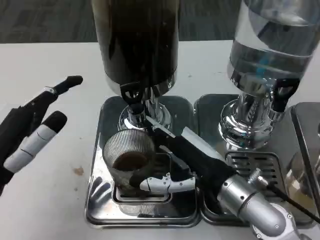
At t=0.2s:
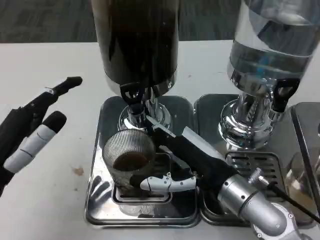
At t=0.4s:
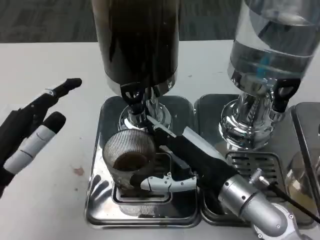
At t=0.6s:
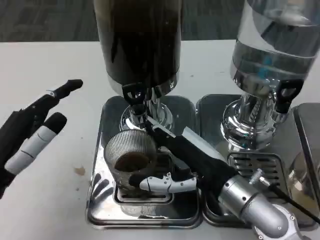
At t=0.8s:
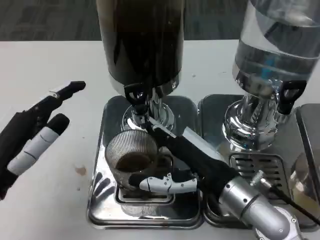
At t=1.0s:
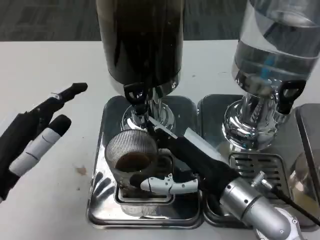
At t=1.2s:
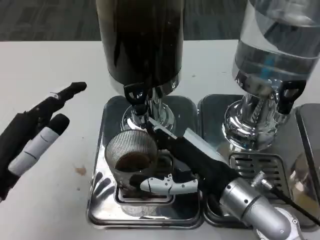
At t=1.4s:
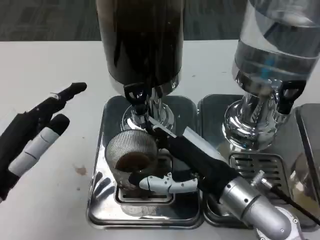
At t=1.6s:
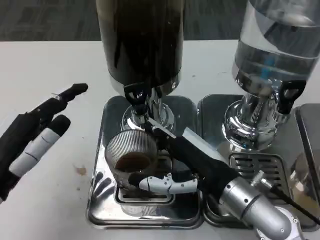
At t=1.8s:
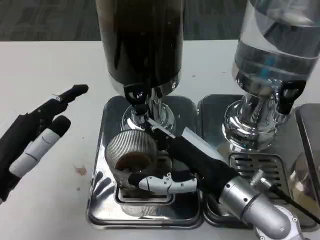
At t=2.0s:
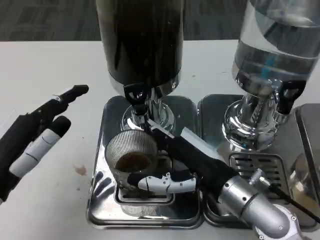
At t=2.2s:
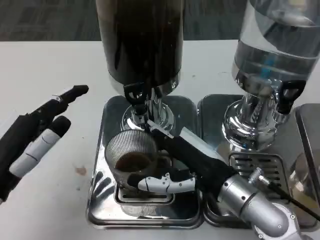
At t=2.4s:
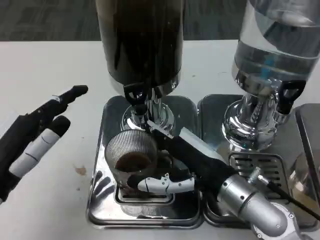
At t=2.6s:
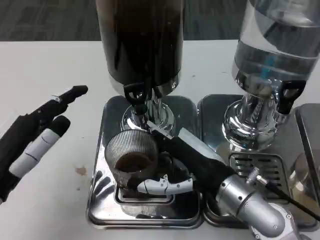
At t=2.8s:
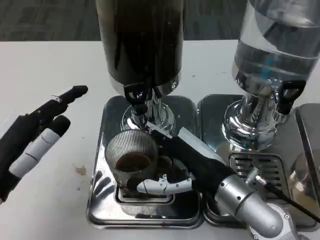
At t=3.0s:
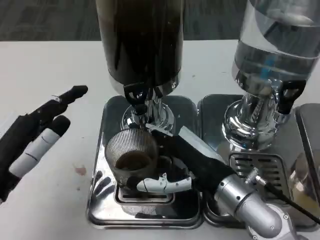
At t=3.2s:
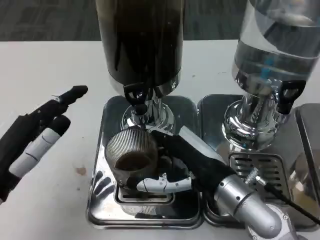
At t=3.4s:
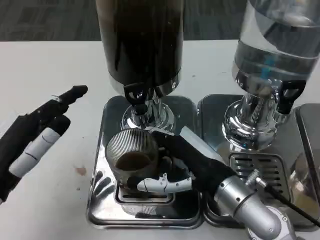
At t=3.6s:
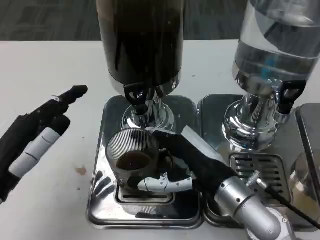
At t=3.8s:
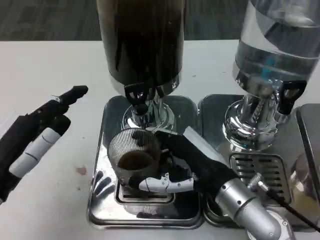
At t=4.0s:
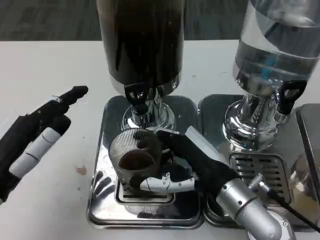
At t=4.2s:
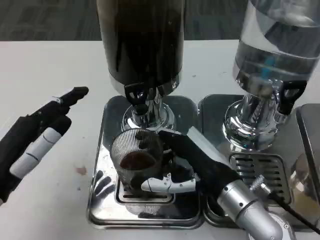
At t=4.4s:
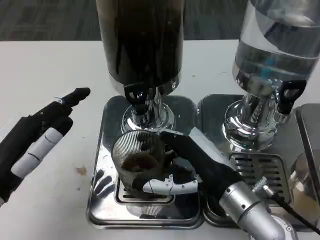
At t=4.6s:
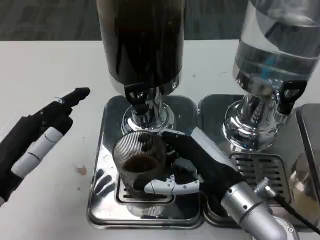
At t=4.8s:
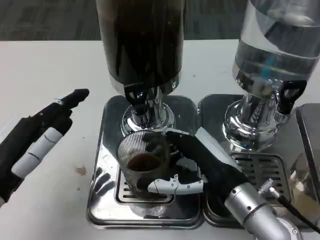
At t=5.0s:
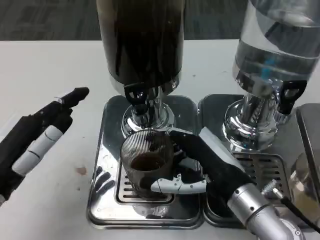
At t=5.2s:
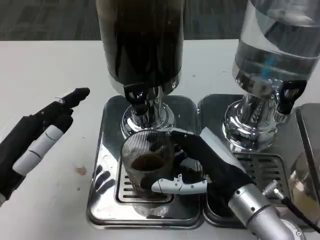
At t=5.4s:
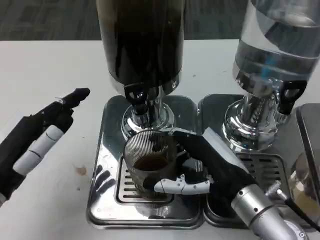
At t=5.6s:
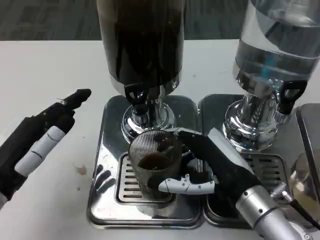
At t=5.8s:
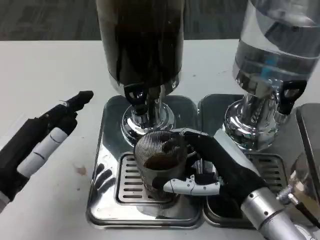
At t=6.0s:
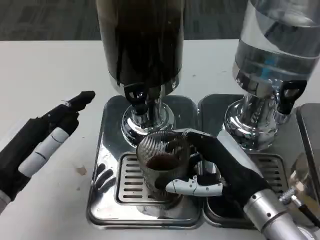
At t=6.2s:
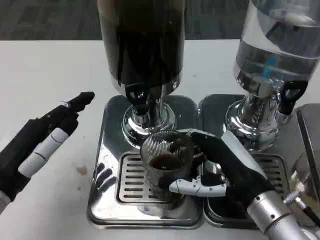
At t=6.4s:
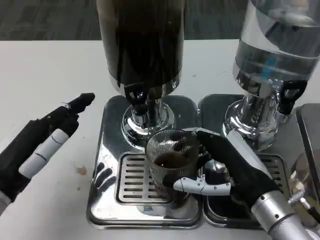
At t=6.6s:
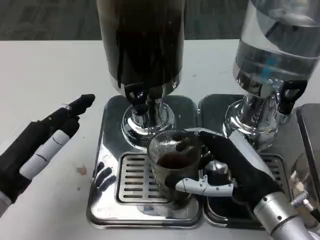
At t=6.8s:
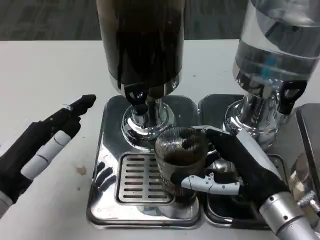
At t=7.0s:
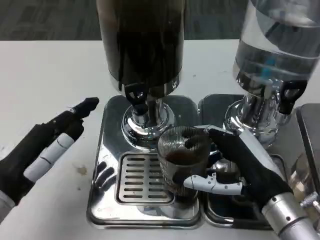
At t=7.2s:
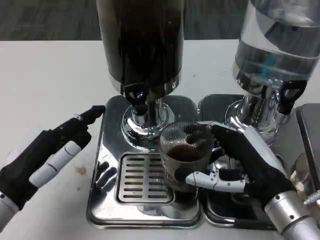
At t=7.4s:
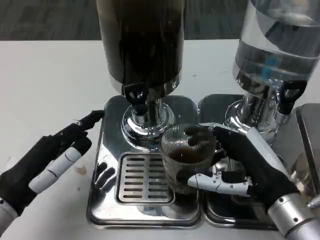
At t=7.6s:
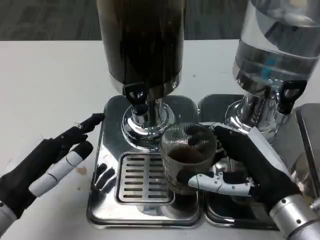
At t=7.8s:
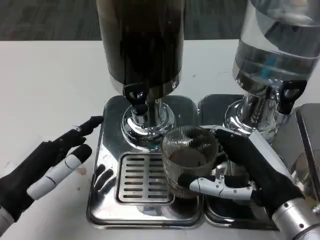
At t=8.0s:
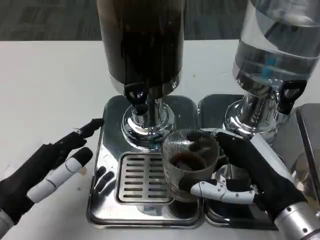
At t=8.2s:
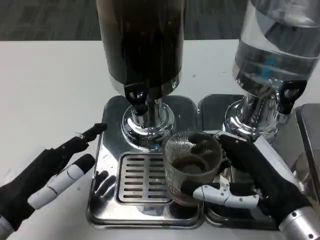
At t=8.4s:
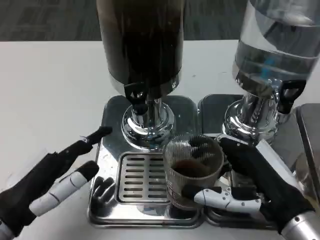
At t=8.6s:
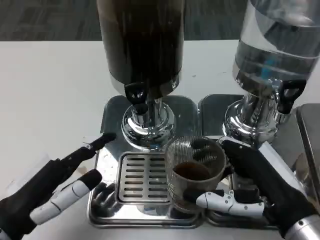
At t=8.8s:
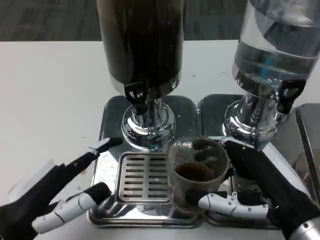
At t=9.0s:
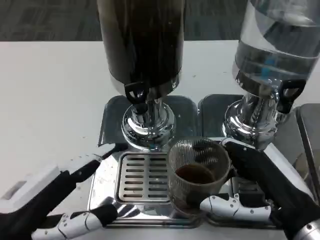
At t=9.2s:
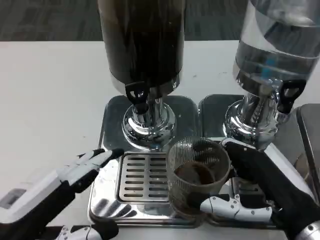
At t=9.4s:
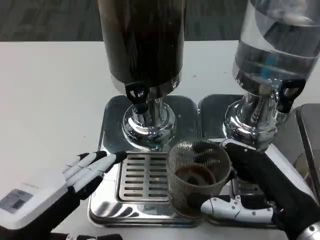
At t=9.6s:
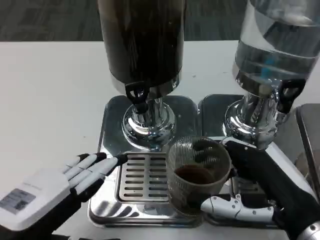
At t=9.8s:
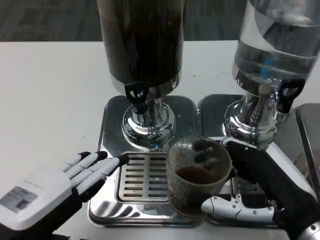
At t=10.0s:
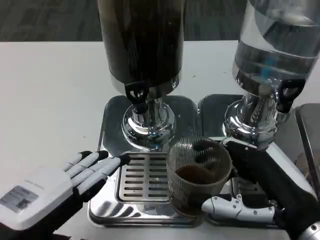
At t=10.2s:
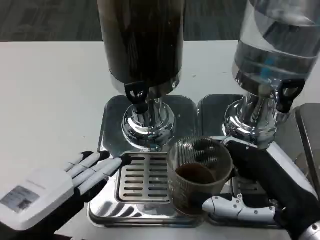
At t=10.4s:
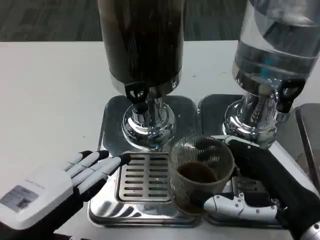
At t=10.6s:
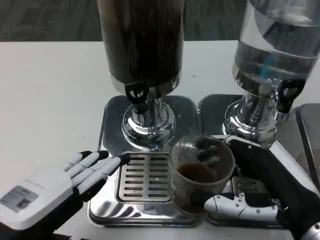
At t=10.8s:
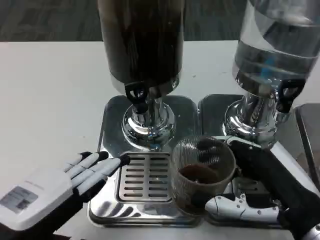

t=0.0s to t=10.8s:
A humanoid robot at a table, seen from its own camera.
Task of the whole recording: Grasp the cup under the faucet to collect the drink, then remove the cup.
t=1.6s to t=4.6s: There are only small adjustments of the hands.
t=7.8s to t=9.2s: The left hand shifts roughly 5 cm backward.
t=9.2s to t=10.8s: The hands make only small movements.

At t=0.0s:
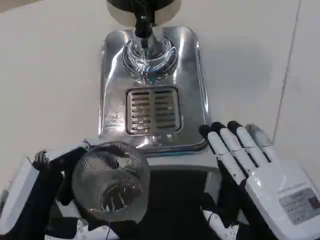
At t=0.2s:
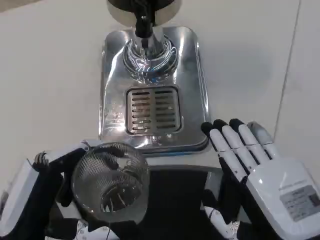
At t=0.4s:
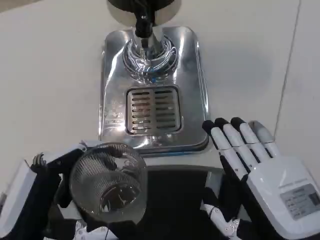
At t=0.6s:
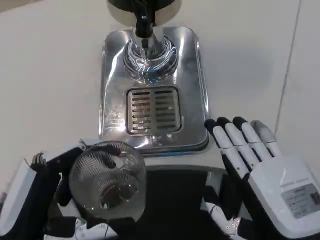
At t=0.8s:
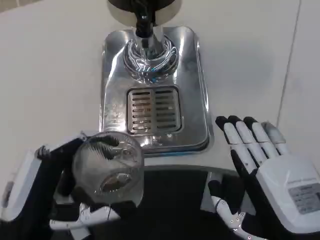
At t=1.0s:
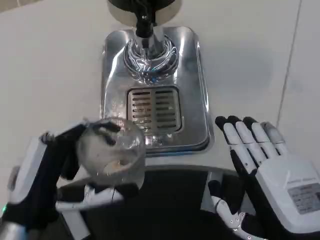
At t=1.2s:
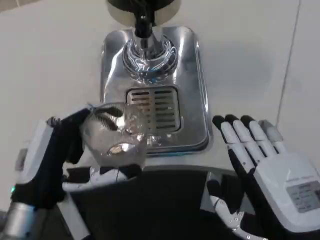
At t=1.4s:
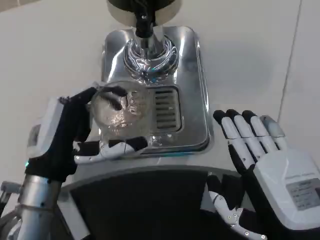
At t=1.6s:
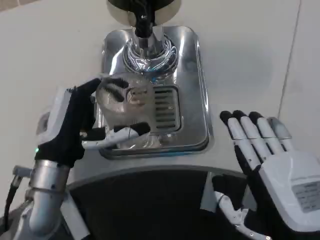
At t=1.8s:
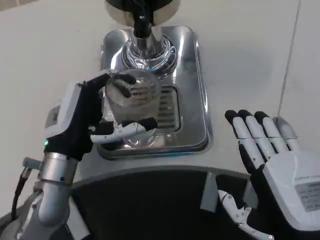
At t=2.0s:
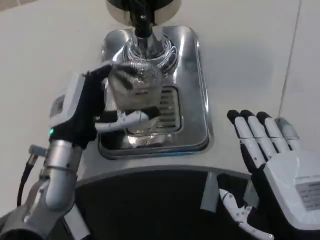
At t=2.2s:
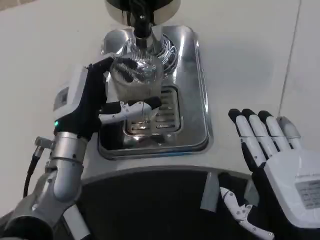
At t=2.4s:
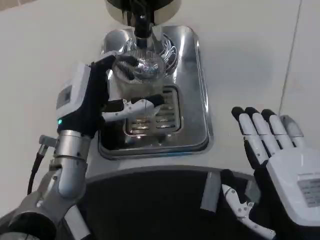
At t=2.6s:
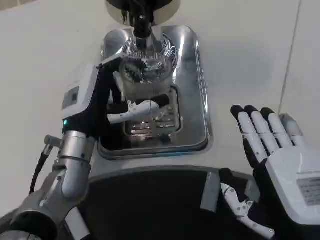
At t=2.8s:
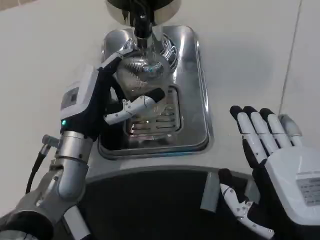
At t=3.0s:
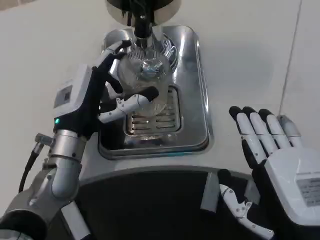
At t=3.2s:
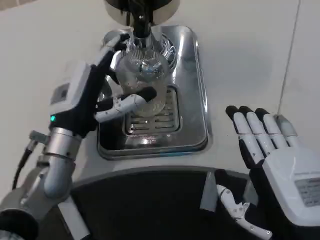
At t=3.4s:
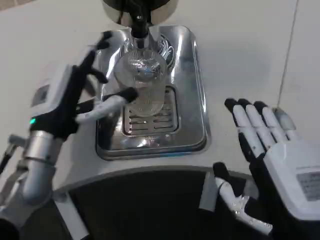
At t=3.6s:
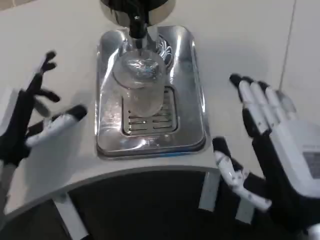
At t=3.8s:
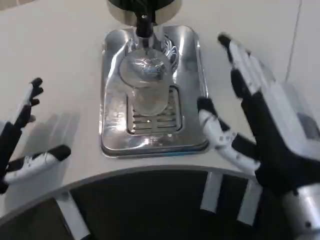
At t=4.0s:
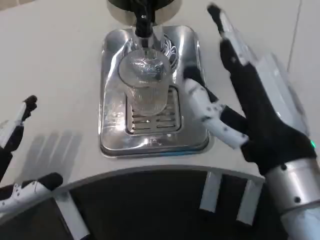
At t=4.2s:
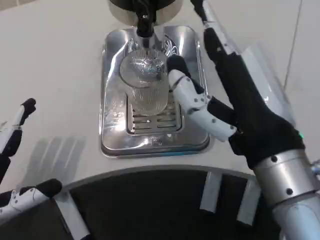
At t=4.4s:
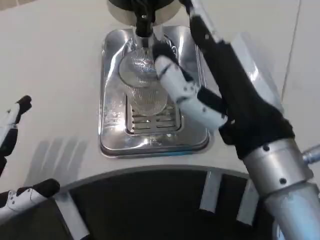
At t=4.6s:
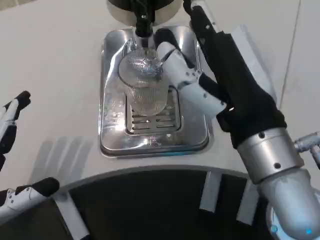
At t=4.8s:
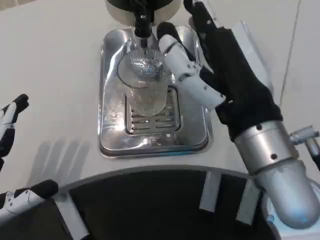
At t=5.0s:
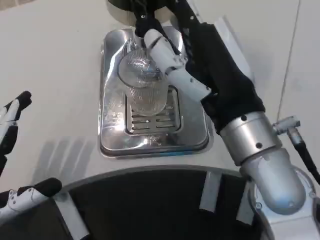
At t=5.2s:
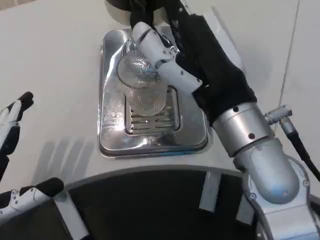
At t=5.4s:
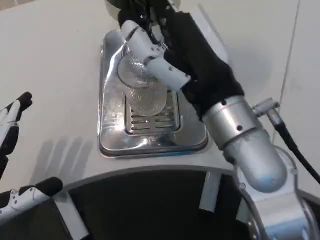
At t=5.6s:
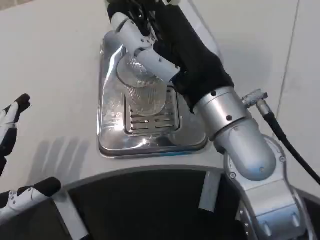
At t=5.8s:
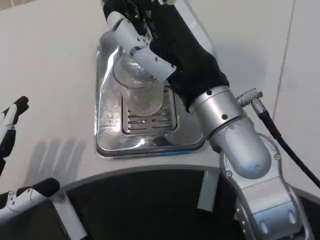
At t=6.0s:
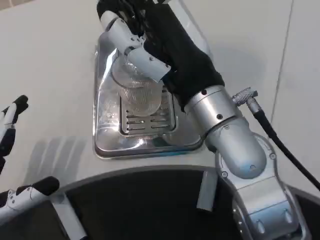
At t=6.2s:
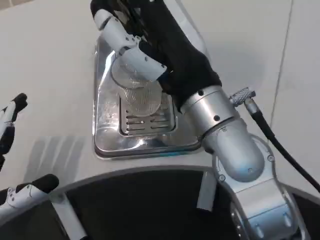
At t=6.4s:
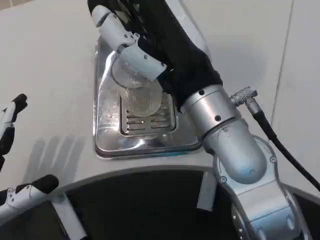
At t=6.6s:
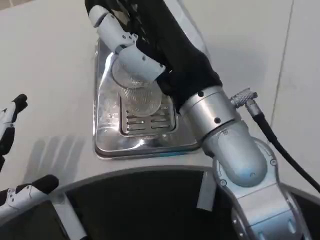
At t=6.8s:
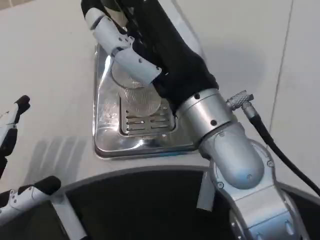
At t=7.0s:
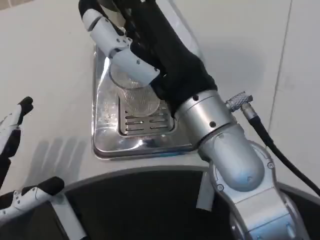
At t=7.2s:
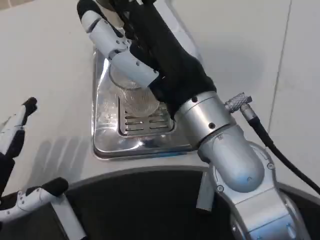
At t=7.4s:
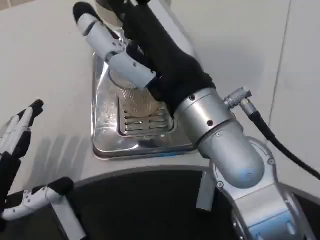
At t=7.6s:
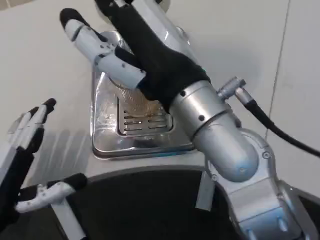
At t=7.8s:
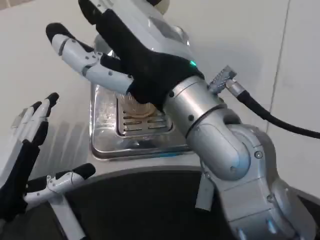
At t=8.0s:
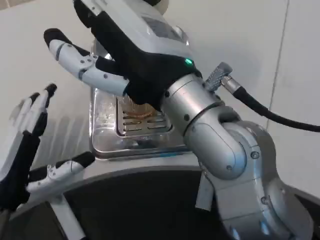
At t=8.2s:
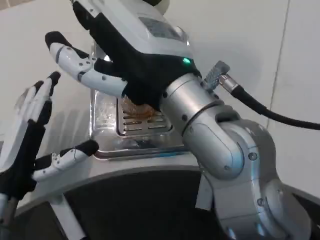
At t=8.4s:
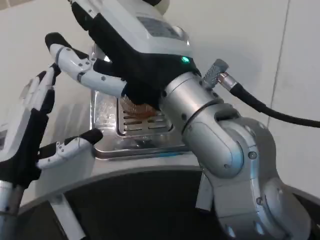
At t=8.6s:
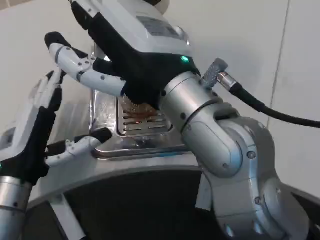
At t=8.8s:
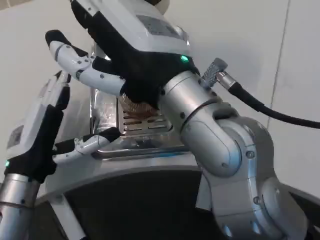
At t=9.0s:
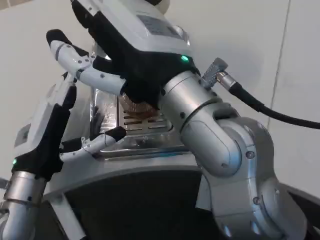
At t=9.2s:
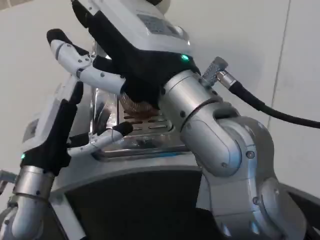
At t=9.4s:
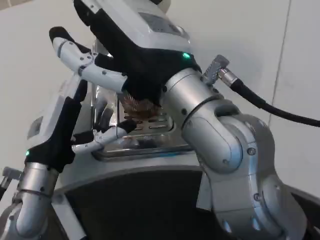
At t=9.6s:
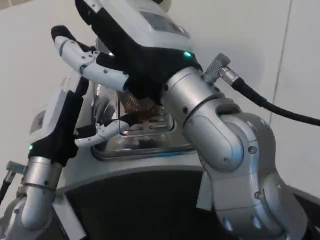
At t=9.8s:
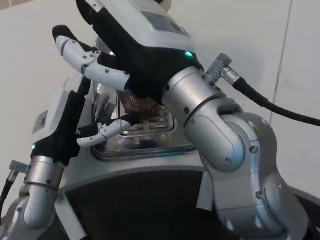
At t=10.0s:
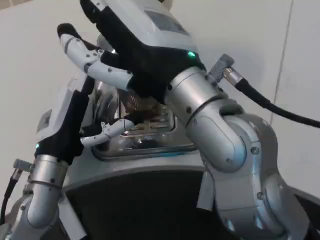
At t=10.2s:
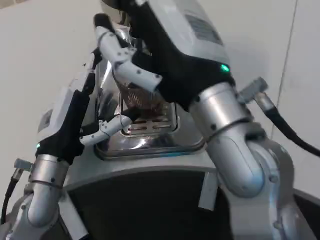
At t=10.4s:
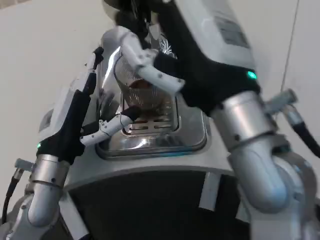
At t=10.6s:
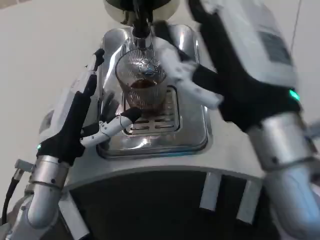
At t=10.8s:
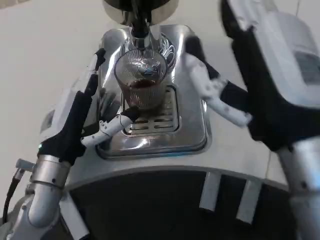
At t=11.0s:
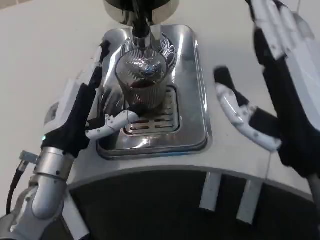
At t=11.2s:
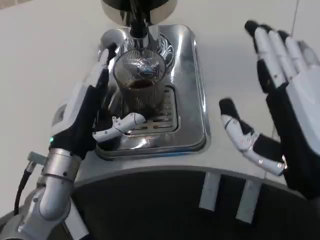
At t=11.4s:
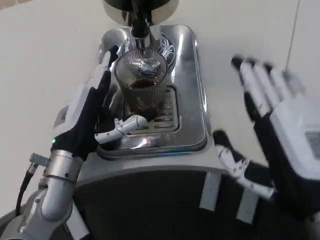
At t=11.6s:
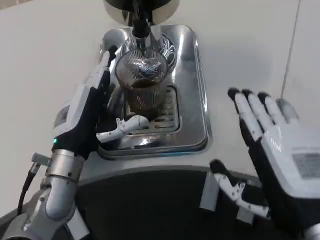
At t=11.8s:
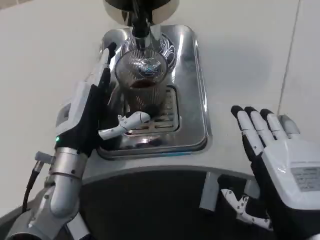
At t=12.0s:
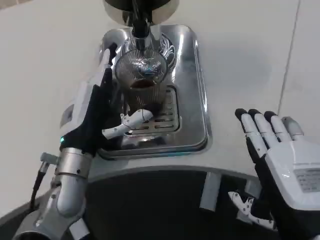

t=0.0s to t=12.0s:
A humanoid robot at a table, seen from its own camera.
Task of the whole recording: Grasp the cup under the faucet to collect the drink, then remove the cup.
t=0.0s to t=1.6s: The left hand moves forward, some 15 cm.
t=3.0s to t=4.4s: The left hand travels backward and to the left by about 20 cm. Meanwhile the right hand travels upward, to the left and forward by about 15 cm.
t=4.4s to t=6.0s: The right hand travels forward by about 5 cm.
t=7.6s to t=9.0s: The left hand heads forward, covering some 5 cm.
t=9.0s to t=10.4s: The right hand moves approximately 5 cm.
t=10.4s to t=12.0s: The right hand shifts about 15 cm downward, to the right and backward.
